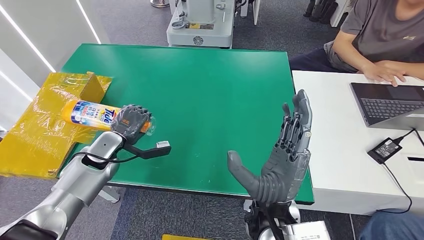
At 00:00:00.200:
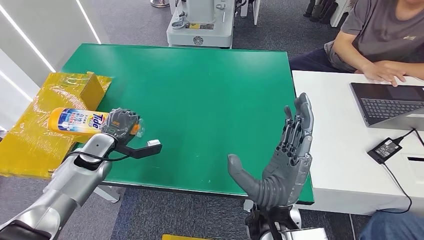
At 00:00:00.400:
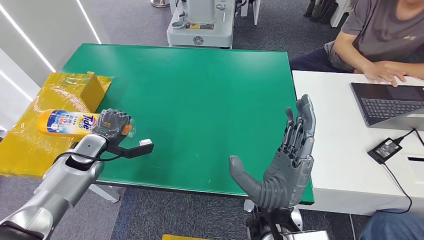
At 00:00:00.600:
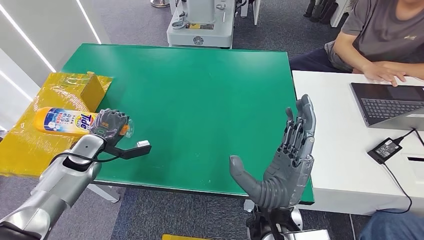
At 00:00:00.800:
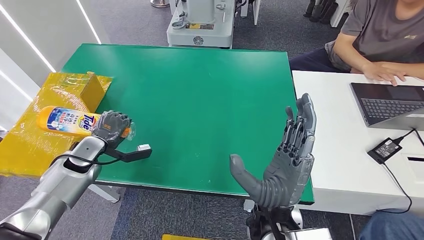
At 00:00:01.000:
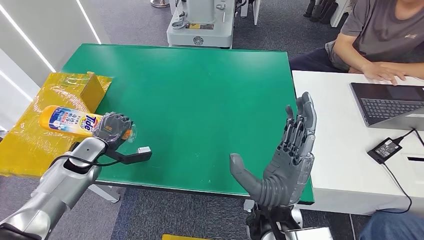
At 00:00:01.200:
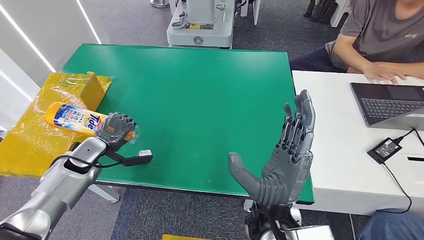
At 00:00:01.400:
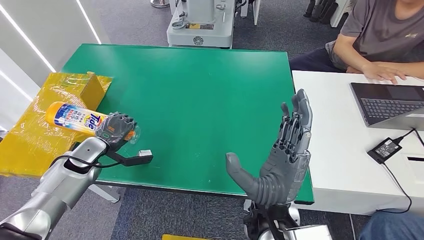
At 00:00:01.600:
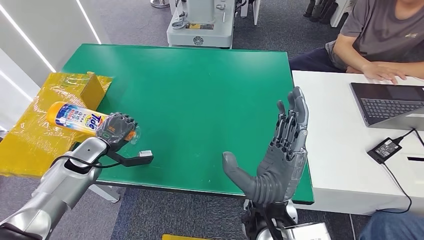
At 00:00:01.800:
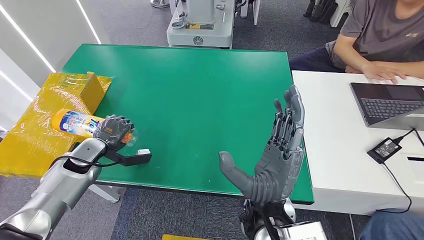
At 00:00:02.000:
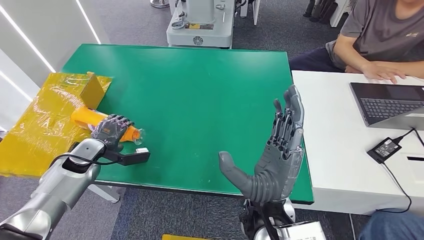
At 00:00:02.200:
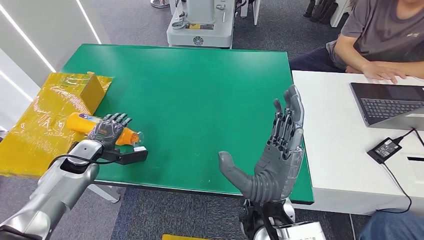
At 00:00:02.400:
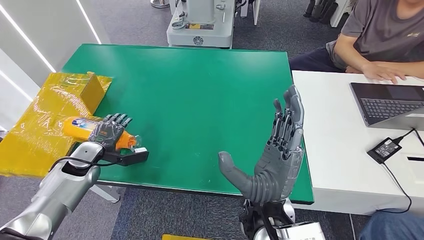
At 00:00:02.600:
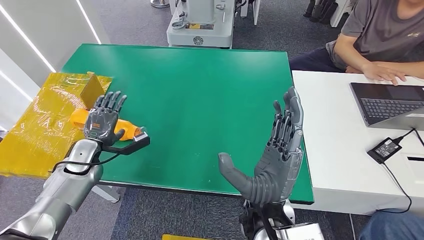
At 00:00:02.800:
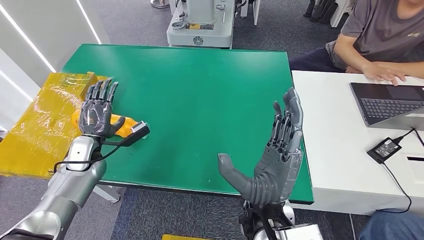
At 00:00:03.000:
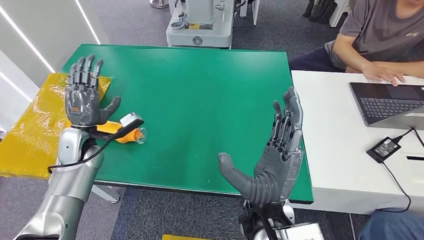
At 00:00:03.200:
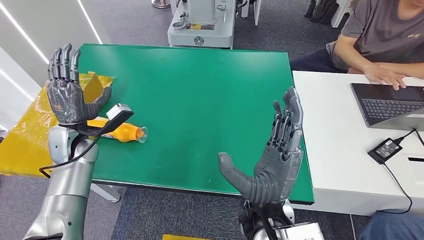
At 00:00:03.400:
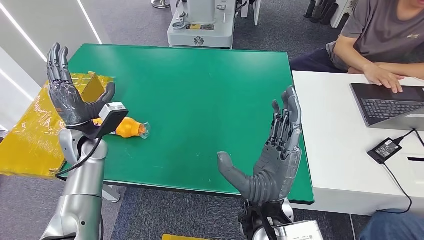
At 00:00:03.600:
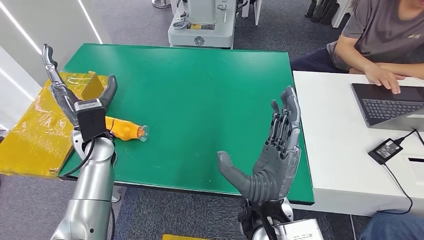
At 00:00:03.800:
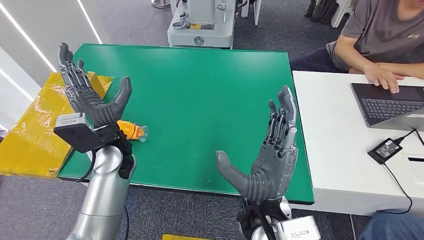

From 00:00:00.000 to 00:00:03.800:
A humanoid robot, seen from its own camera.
Step, from 00:00:00.000 to 00:00:03.800: Turn the bottle to the front side.
From 00:00:00.000 to 00:00:01.200: The left hand shifts some 5 cm to the left.
From 00:00:02.600 to 00:00:03.800: The left hand shifts some 25 cm to the right.
